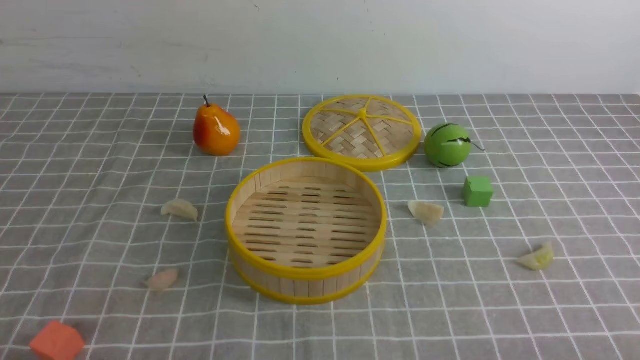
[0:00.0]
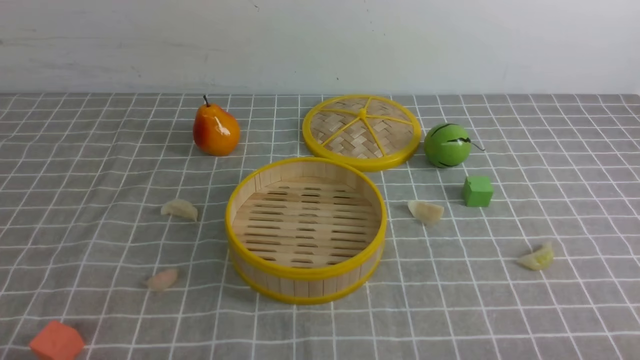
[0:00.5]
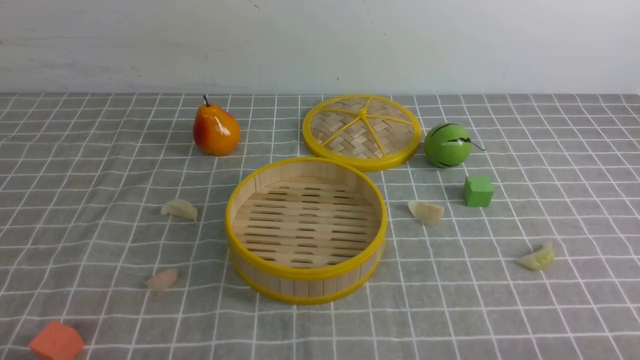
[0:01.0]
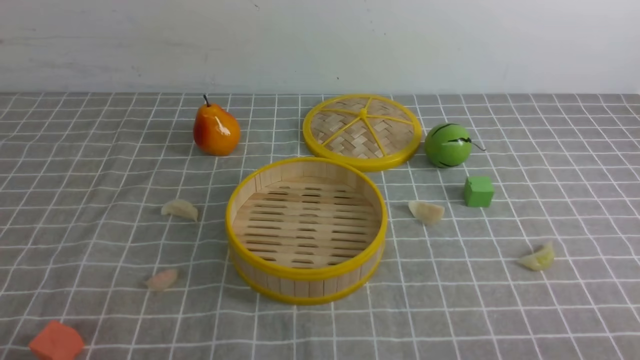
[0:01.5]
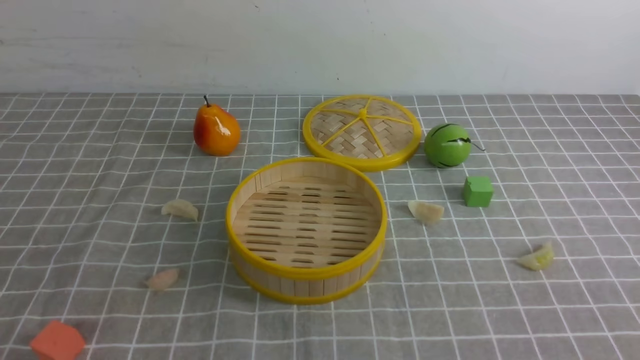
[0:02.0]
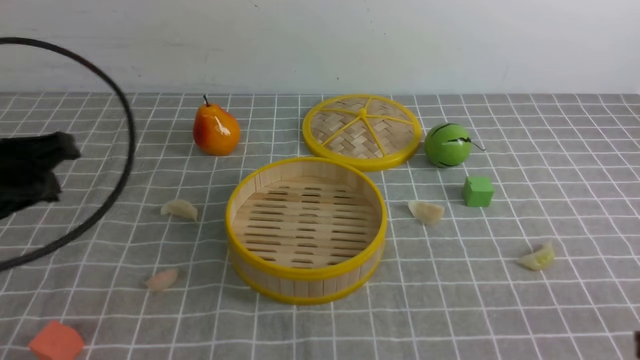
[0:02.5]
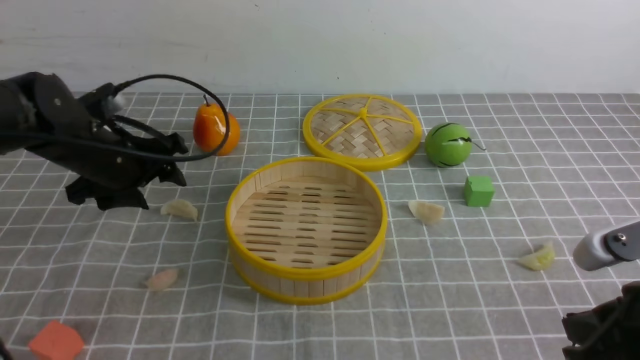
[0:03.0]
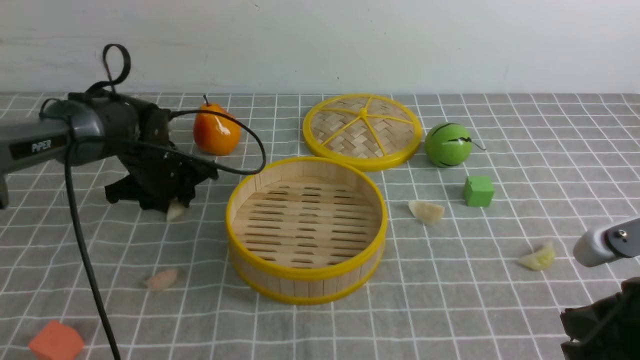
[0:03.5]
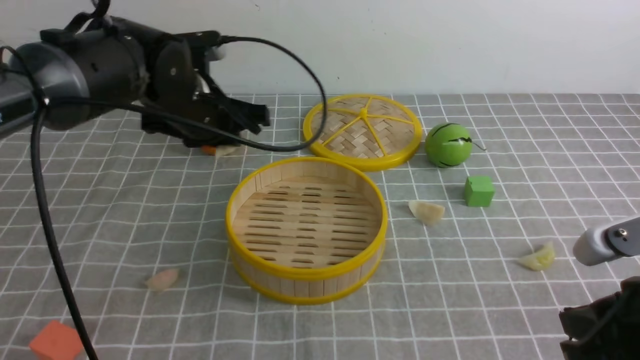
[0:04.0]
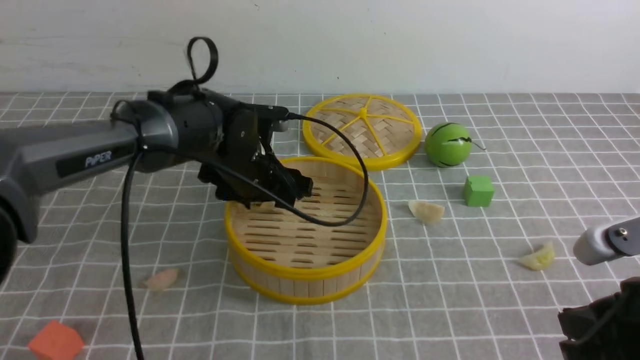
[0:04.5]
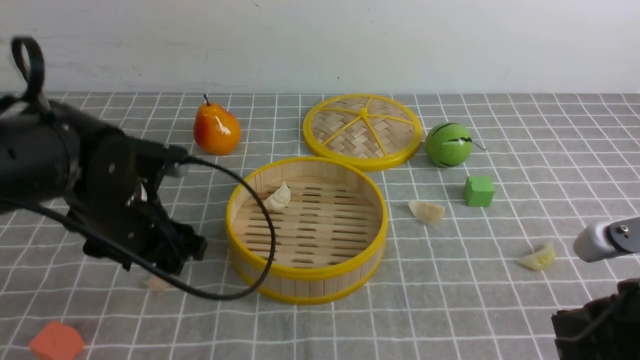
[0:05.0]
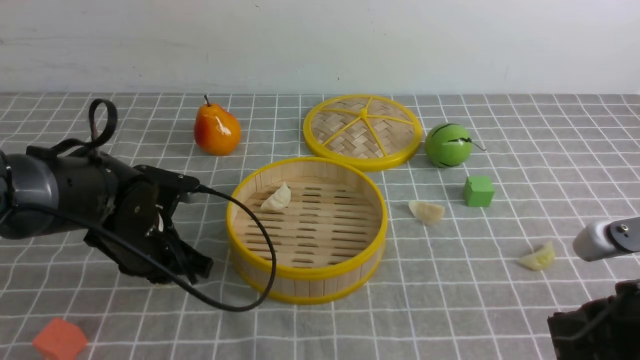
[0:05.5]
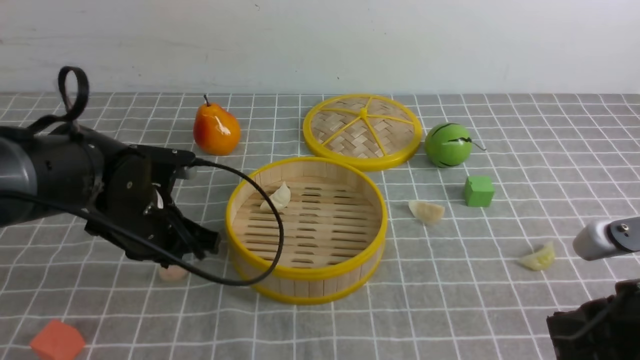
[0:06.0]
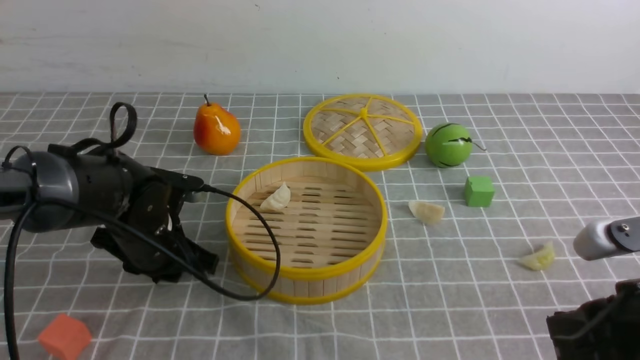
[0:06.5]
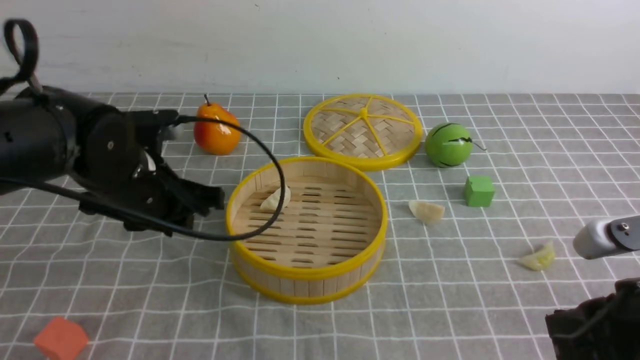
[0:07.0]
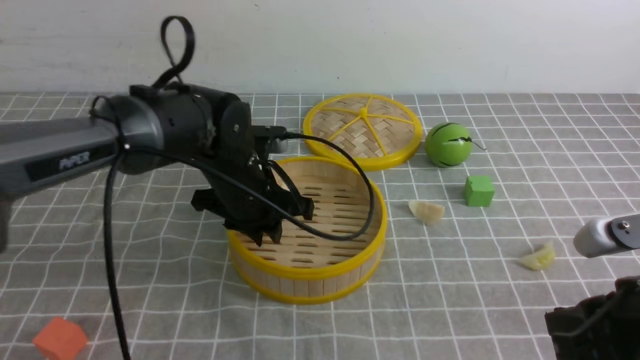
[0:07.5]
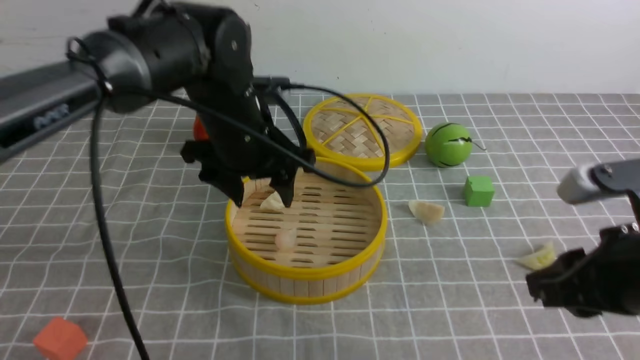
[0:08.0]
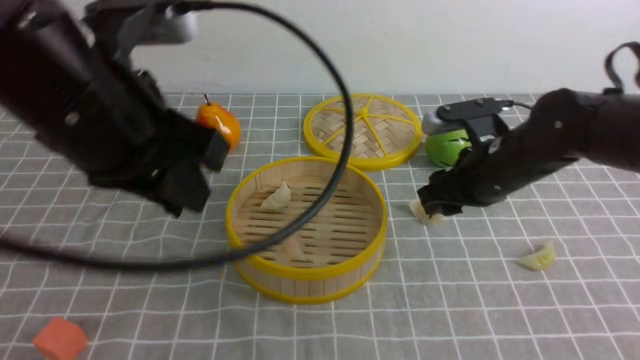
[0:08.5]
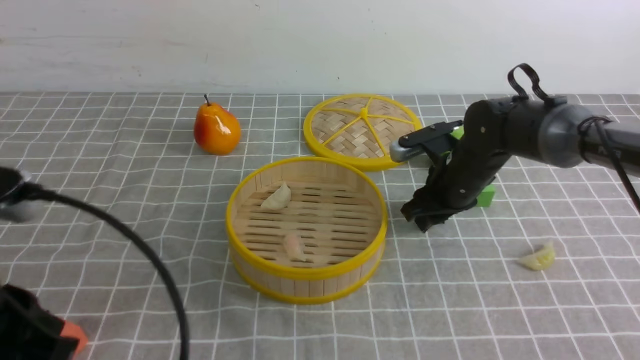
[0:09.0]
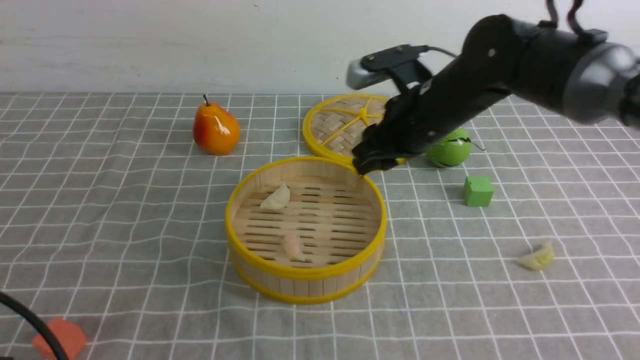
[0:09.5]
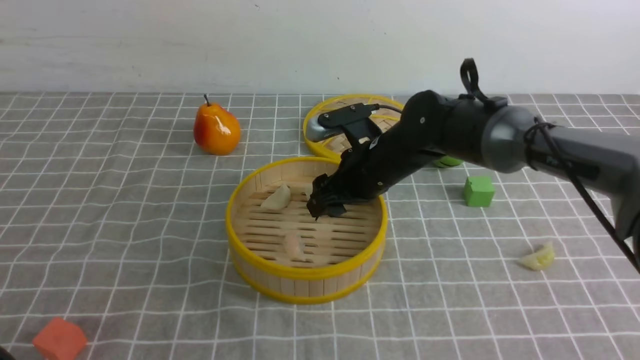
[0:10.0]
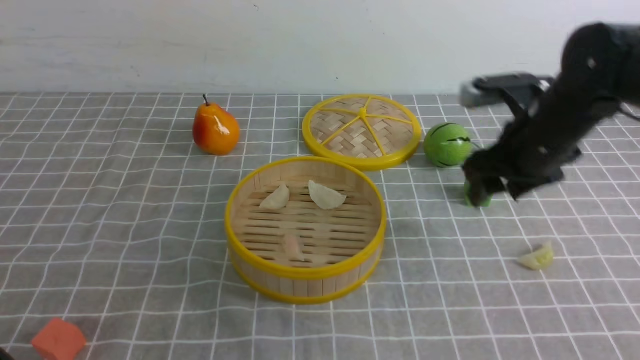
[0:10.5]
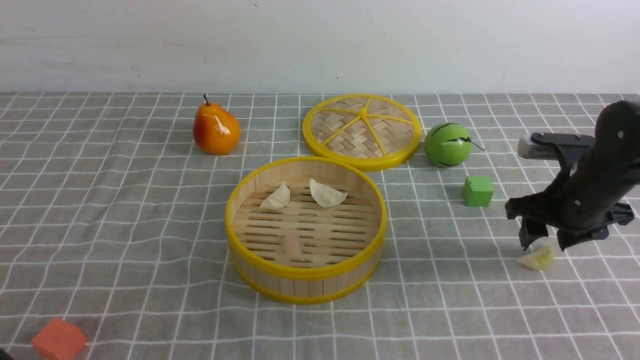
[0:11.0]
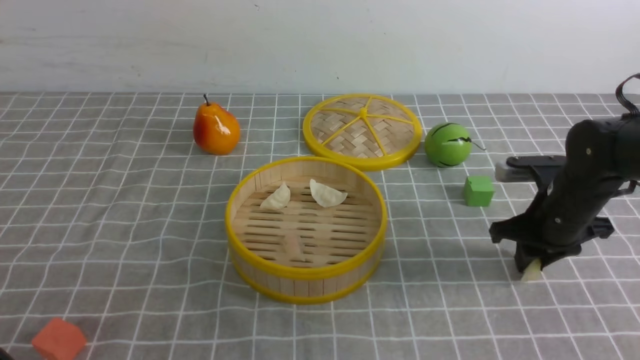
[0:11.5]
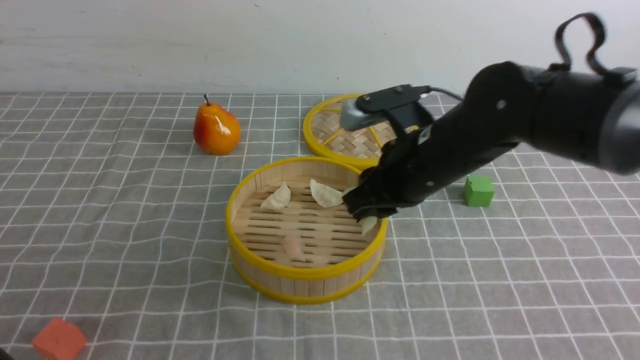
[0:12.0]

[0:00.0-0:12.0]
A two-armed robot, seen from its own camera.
Task of the whole recording: put the dumplings into the steamer on the table with the grey tablecloth.
Step, 0:00.0 to 0:03.5: use the left arm to grab a dumpling.
Step, 0:04.0 to 0:04.5: use the left arm to put the dumpling into the steamer.
Step, 0:05.0 to 0:06.5: use the left arm to grab a dumpling.
Step, 0:08.0 to 0:09.0: use the right arm to grab a dumpling.
Step, 0:09.5 to 0:10.0: use the right arm to put the dumpling into the steamer.
Step, 0:10.5 to 0:11.5: use the right arm to grab a dumpling.
0:02.0 to 0:04.0: The left gripper goes about 35 cm forward, and opens, then closes again, while the right gripper shifts some 10 cm forward and downward.
0:04.0 to 0:06.0: The left gripper heads backward, downward and to the left, covering some 10 cm, and opens, then closes once more.
0:06.0 to 0:08.0: The right gripper shifts by approximately 5 cm, and opens. The left gripper shifts roughly 15 cm upward and to the right, and opens up.
0:08.0 to 0:10.0: The left gripper is displaced backward and to the left by some 35 cm, and closes; the right gripper shifts some 25 cm forward and to the left, and opens.
0:10.0 to 0:12.0: The right gripper shifts about 5 cm backward, reaches approximately 20 cm to the right, then returns, and closes its fingers.

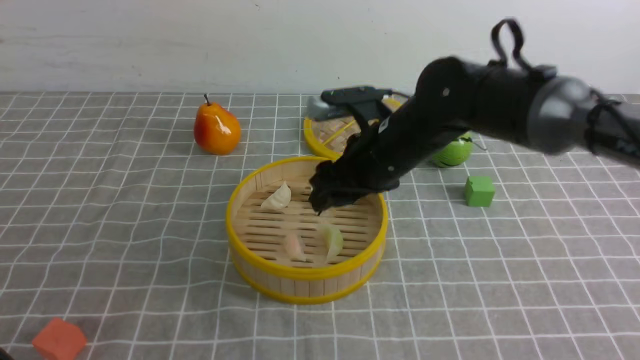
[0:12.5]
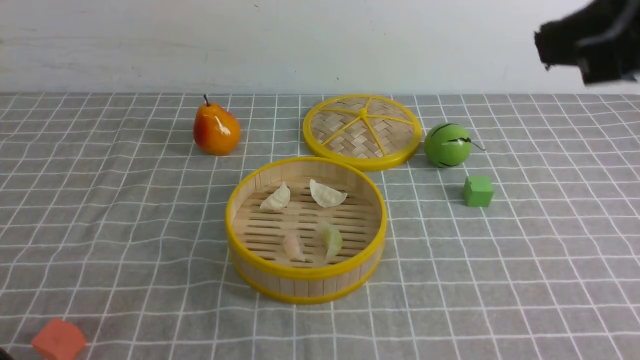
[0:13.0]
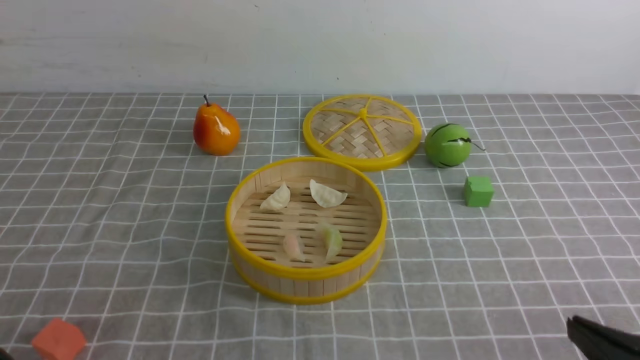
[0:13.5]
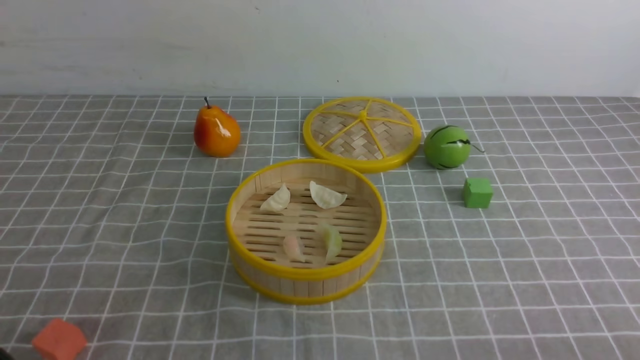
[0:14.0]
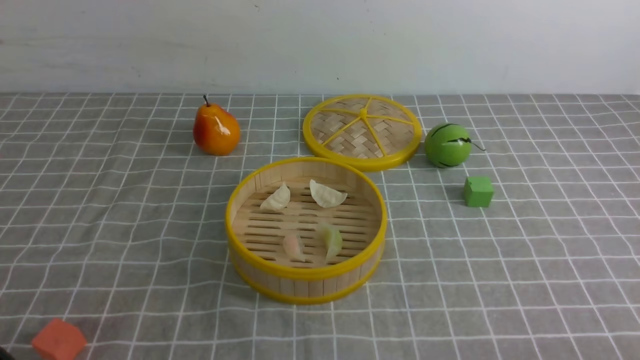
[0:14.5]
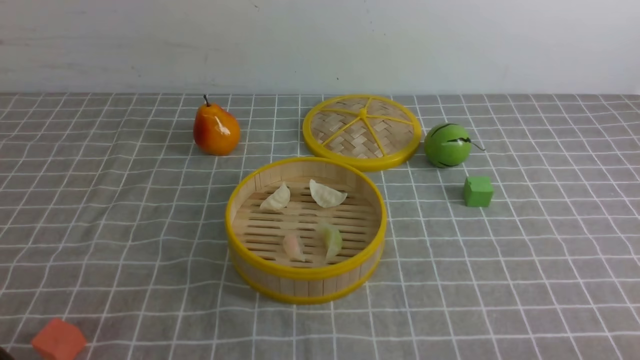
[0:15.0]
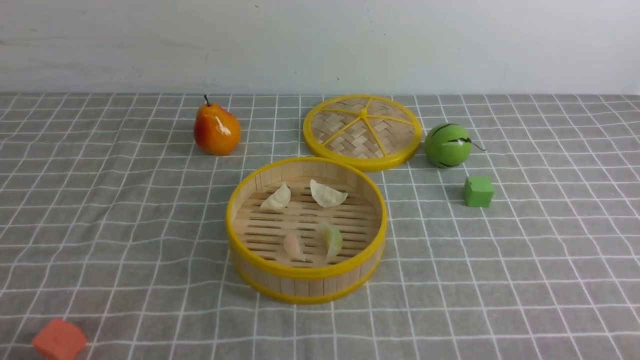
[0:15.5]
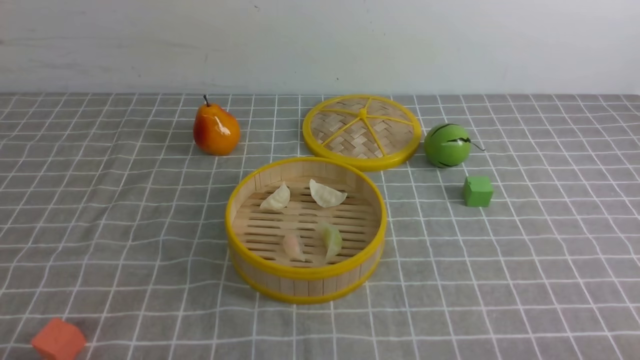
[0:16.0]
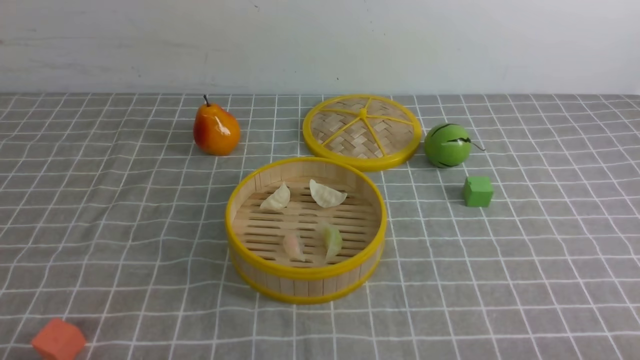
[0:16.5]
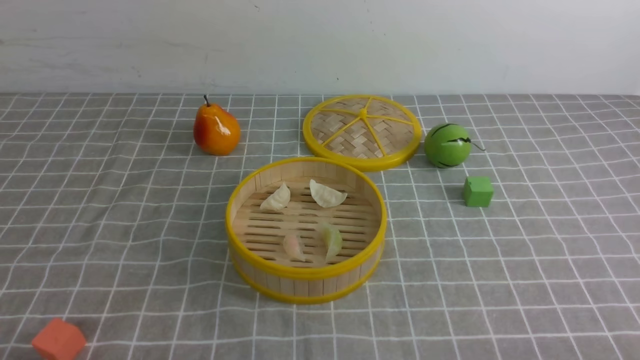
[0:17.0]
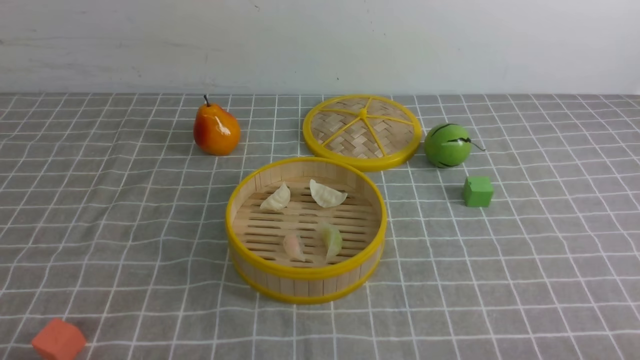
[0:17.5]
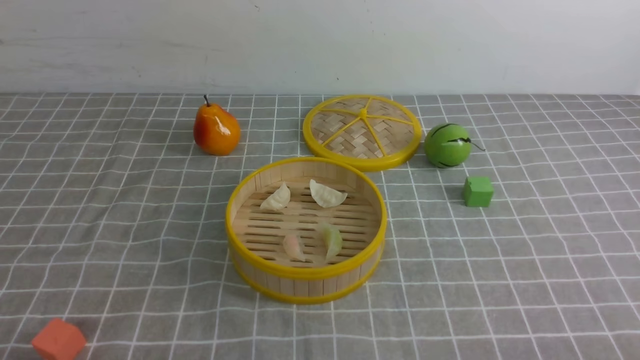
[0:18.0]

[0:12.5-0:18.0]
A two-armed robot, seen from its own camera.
Task of the whole recording: put the dumplings into the steamer on the table with the grey tablecloth.
0:12.5 to 0:14.5: The right gripper goes roughly 40 cm backward, to the right and downward, and closes up.
0:16.0 to 0:18.0: The two grippers keep their place.

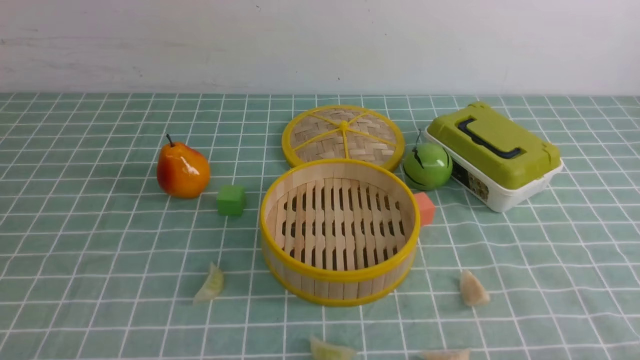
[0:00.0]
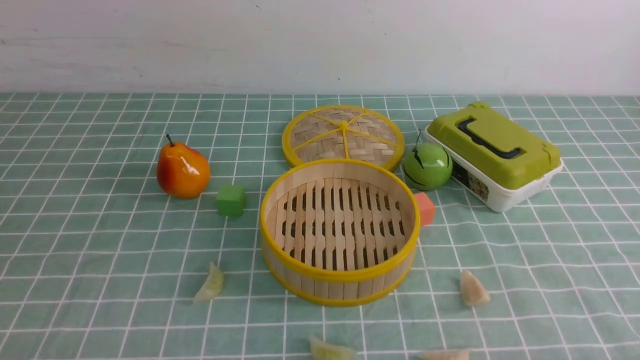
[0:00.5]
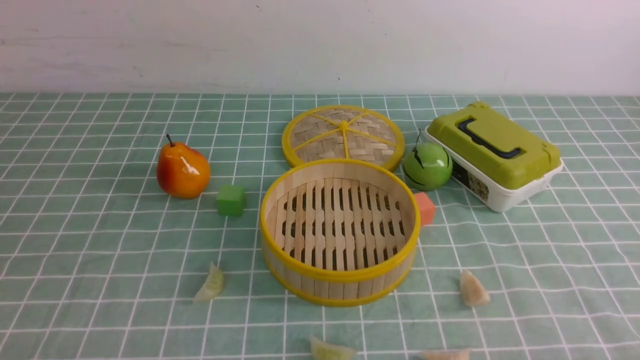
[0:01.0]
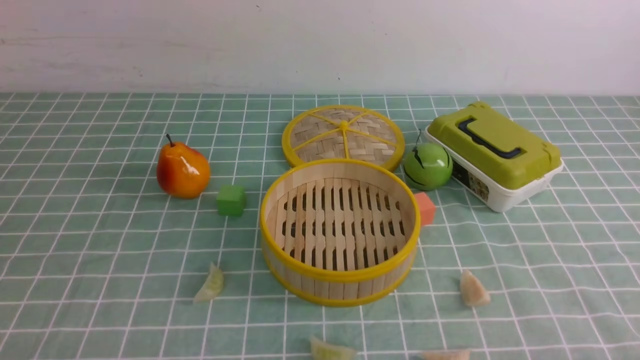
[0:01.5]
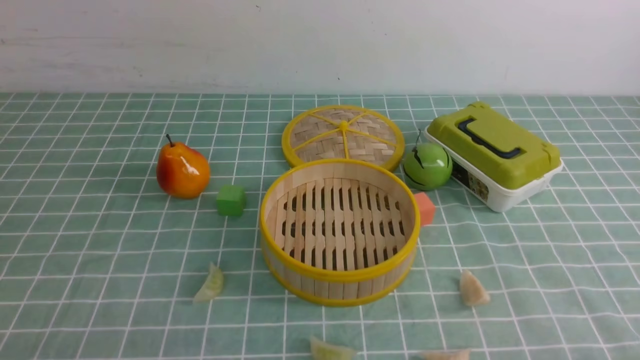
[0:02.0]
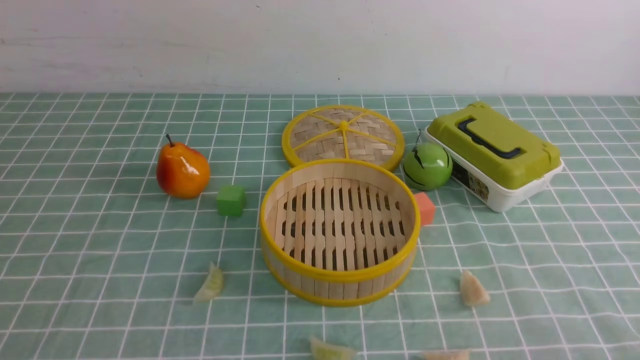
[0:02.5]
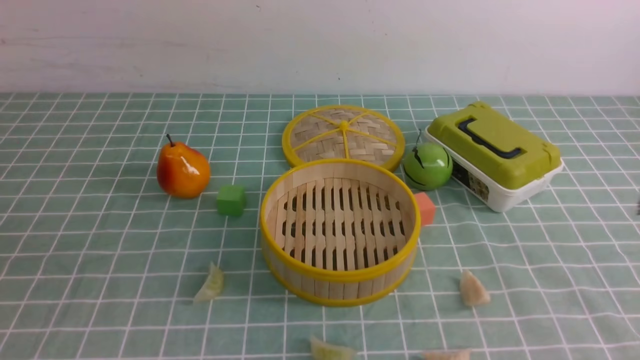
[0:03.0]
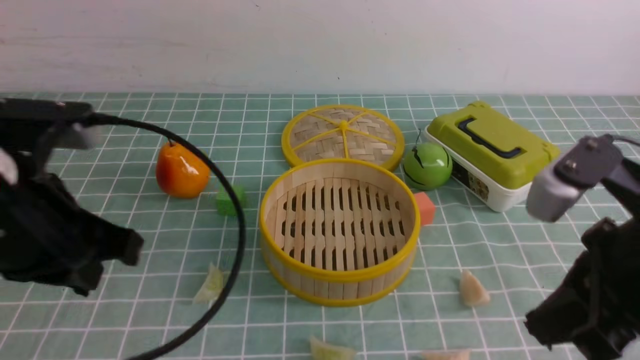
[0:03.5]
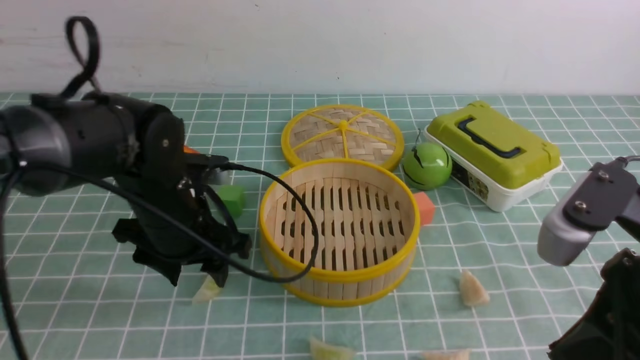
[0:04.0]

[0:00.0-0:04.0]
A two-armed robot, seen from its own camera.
Task of the whole recording: put the dumplings into the steamer on the table with the blue tablecloth.
0:02.0 to 0:04.0: The right gripper moves upward, forward and to the left, some 20 cm, and closes. The left gripper is displaced forward and to the right by about 30 cm, and opens up.
